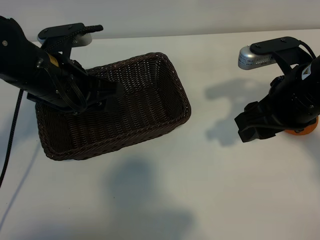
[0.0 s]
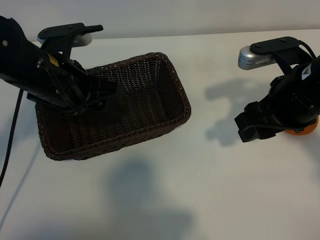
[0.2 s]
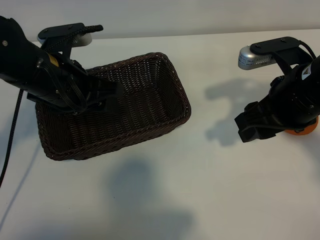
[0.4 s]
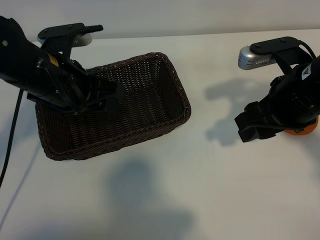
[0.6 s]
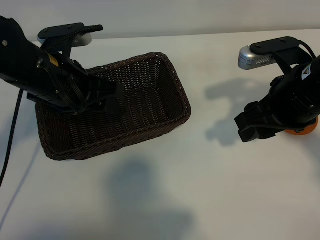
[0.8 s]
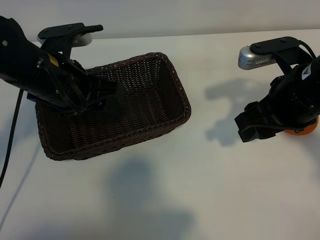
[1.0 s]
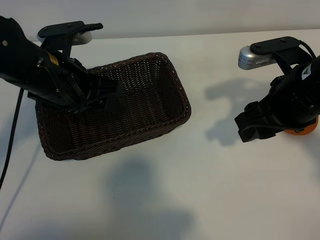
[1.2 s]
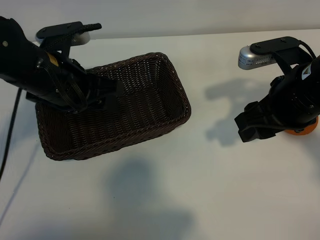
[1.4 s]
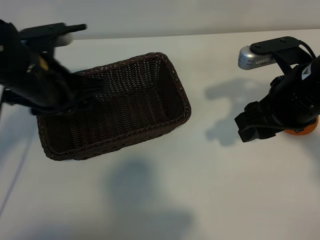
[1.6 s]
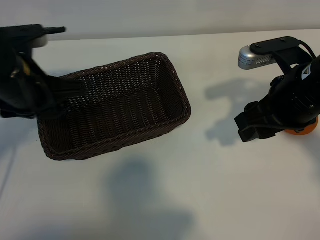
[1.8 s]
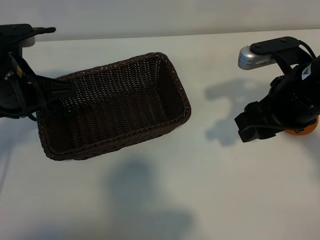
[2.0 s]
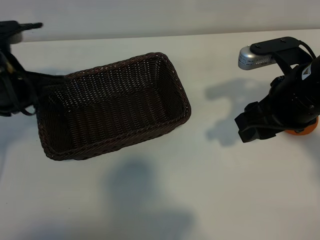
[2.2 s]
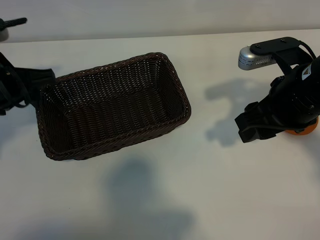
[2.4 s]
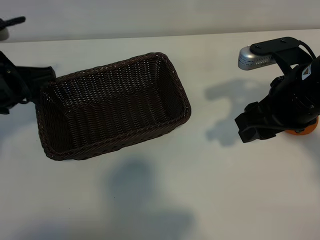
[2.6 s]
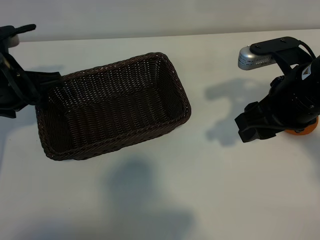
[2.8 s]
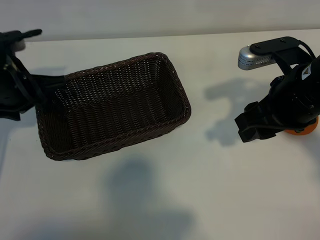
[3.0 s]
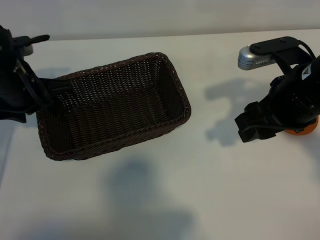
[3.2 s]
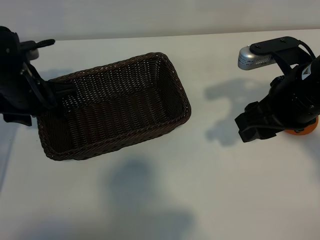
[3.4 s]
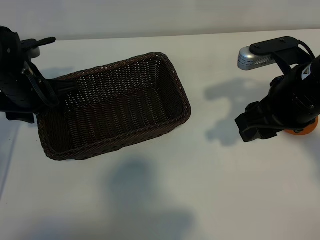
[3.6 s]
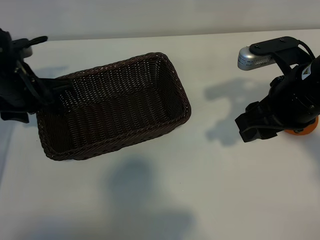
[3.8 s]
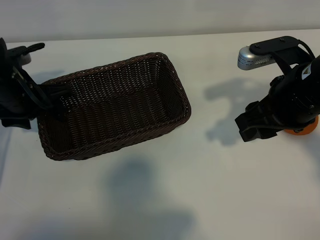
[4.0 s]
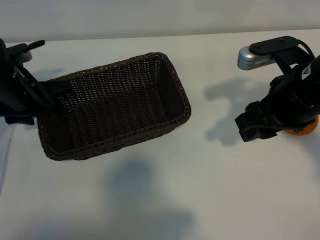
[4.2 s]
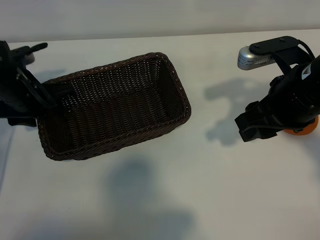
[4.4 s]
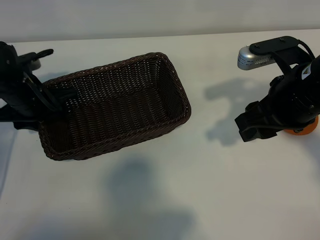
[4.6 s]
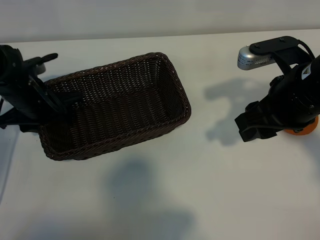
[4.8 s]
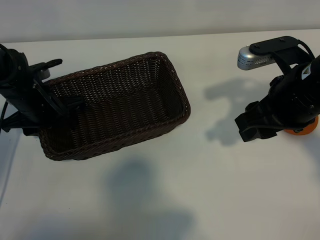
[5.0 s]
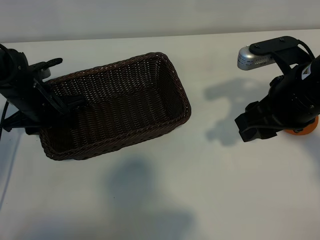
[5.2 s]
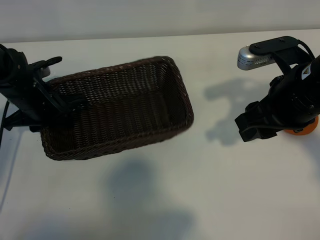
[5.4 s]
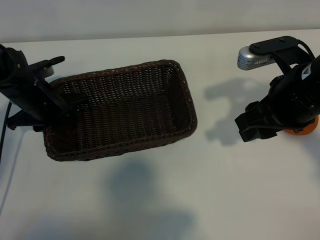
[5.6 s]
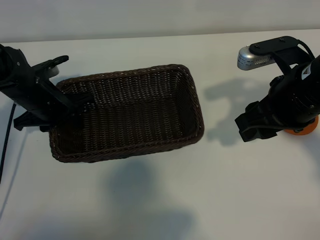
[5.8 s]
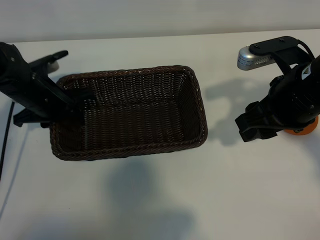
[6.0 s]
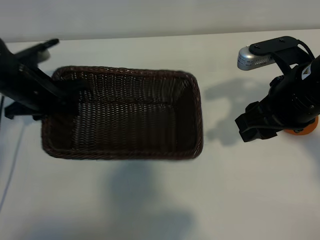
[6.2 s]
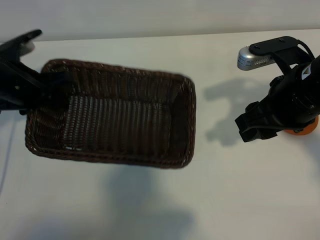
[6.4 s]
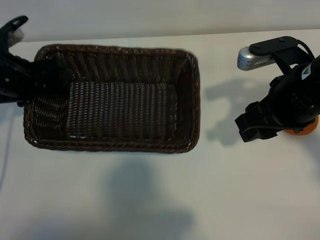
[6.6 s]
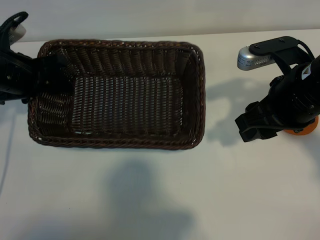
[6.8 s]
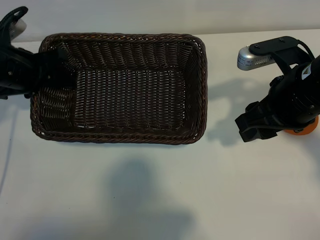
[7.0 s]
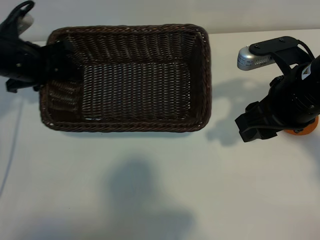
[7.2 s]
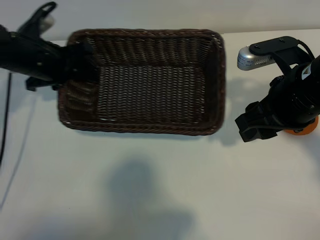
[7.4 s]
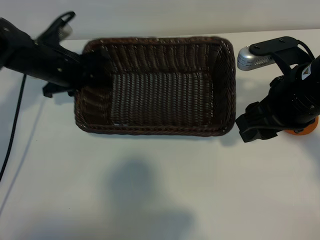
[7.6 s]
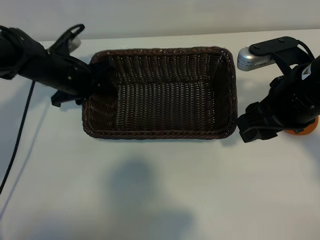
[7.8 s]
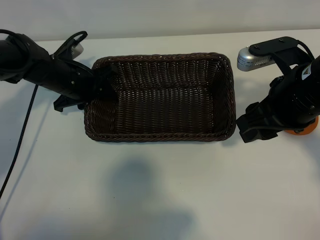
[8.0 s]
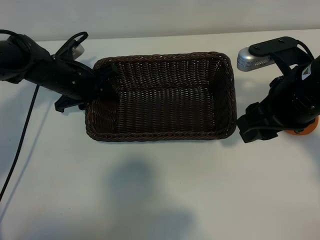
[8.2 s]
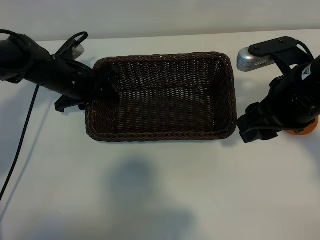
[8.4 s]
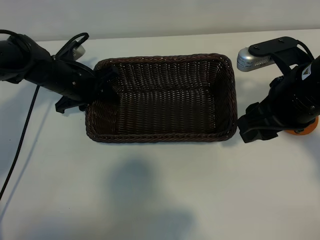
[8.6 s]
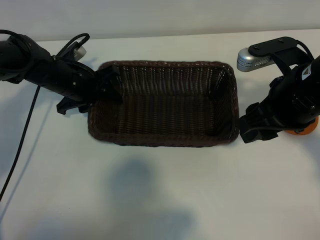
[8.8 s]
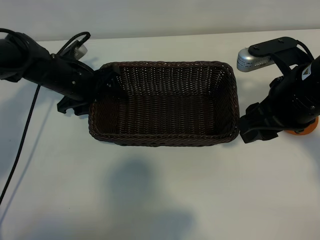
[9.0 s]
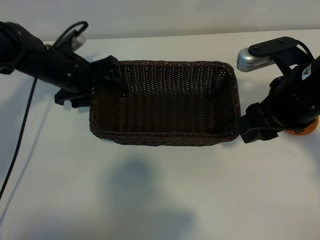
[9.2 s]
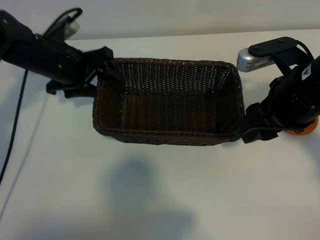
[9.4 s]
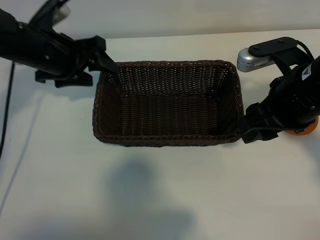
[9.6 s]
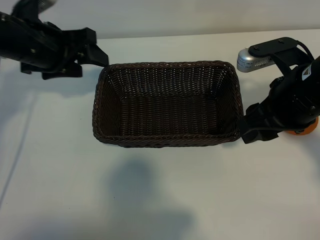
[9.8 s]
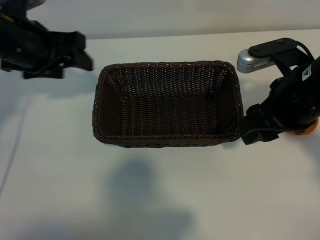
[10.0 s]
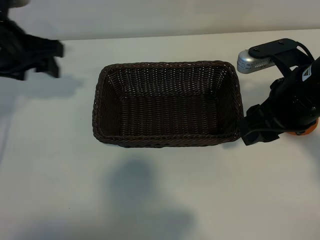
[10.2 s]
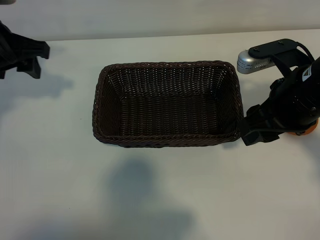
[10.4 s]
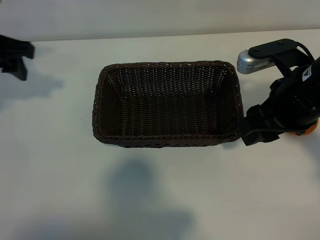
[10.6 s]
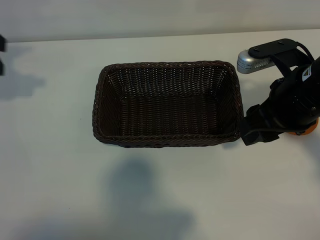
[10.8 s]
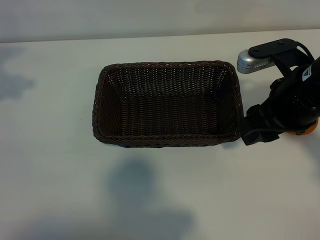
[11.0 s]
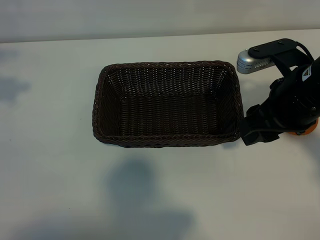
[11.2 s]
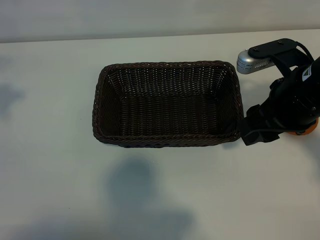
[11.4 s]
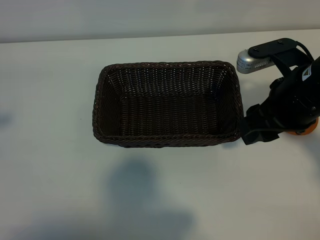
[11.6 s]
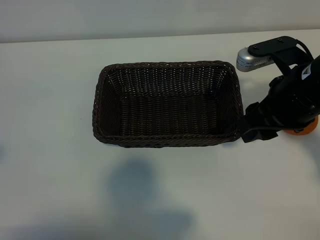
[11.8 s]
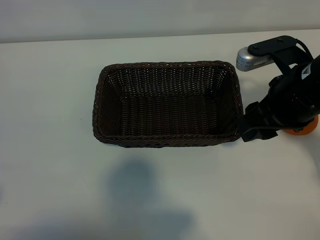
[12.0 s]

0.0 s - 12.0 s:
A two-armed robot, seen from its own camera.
Task of the whole recording: pick up the orange and put it into the basket.
Step, 1.2 s - 5.4 s: Grasp the basket with left gripper.
Step, 5.6 s - 8.8 s: Place the basket in the center of view with left gripper.

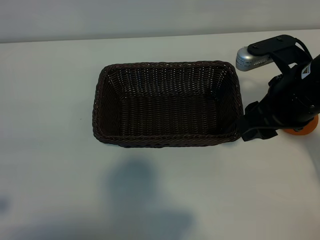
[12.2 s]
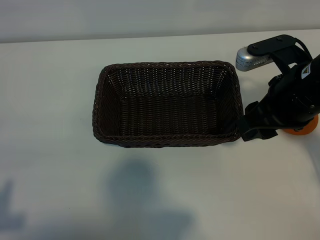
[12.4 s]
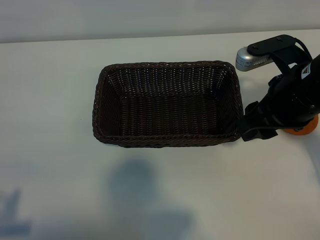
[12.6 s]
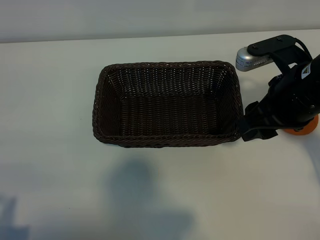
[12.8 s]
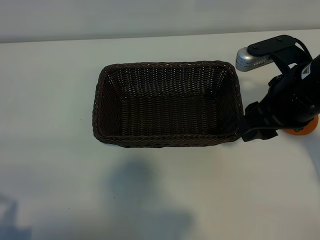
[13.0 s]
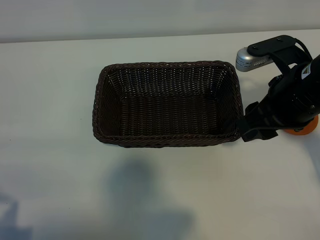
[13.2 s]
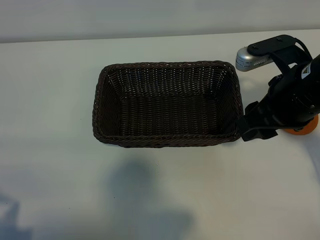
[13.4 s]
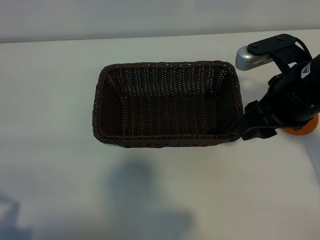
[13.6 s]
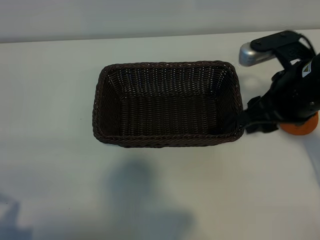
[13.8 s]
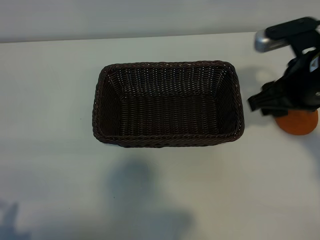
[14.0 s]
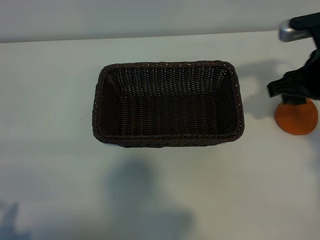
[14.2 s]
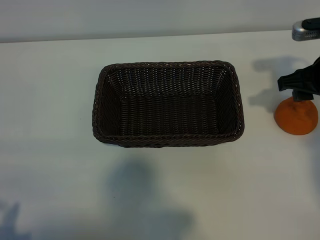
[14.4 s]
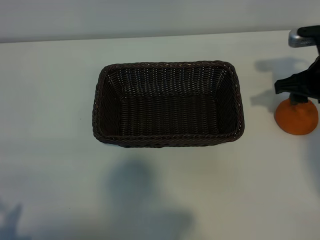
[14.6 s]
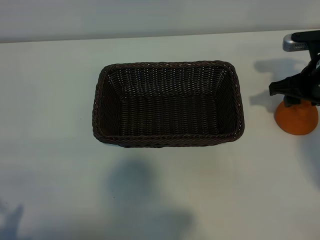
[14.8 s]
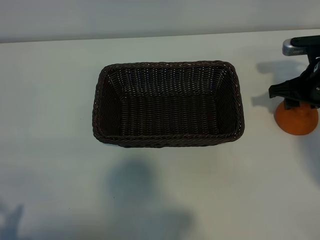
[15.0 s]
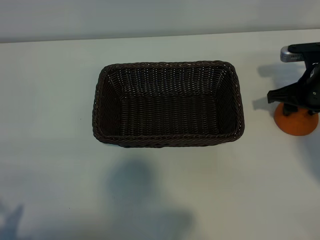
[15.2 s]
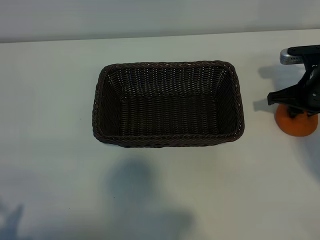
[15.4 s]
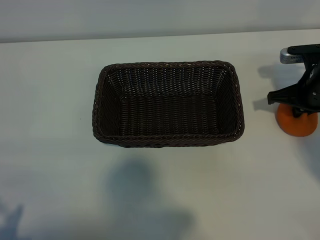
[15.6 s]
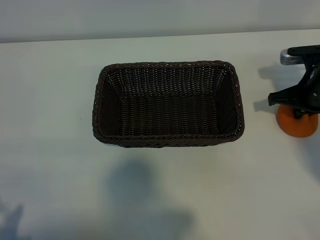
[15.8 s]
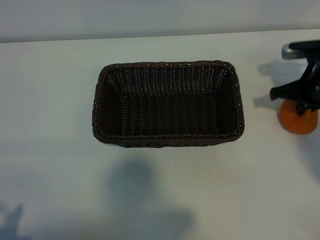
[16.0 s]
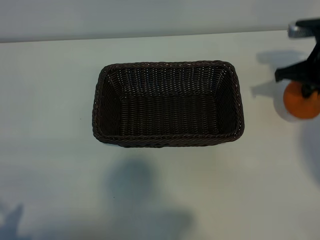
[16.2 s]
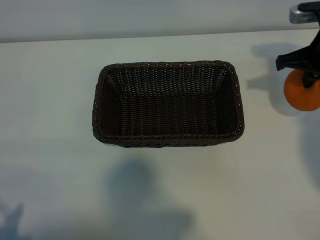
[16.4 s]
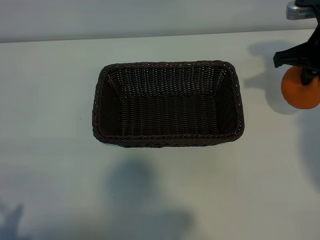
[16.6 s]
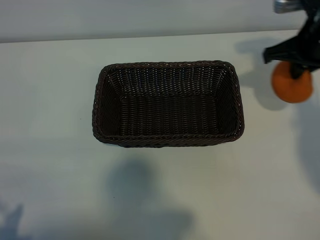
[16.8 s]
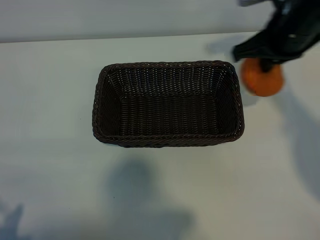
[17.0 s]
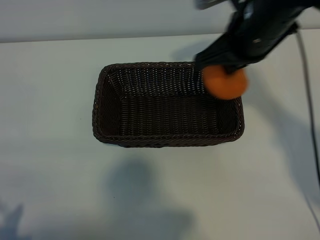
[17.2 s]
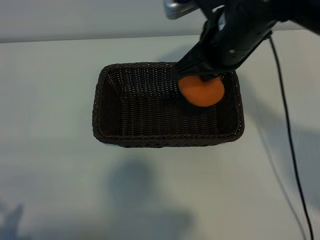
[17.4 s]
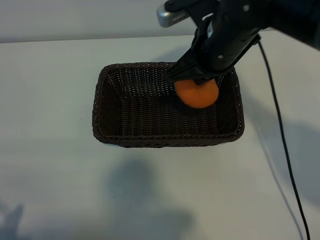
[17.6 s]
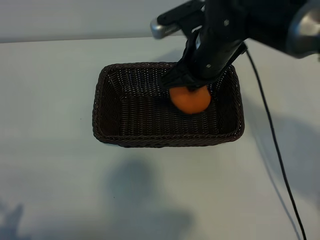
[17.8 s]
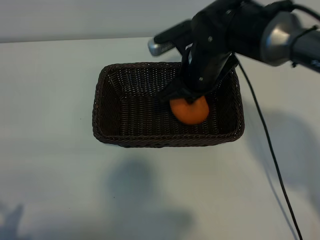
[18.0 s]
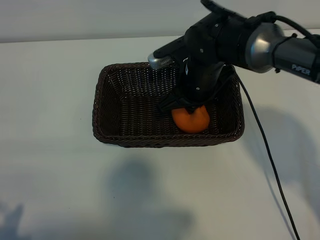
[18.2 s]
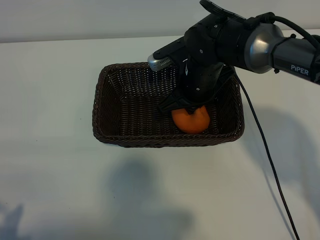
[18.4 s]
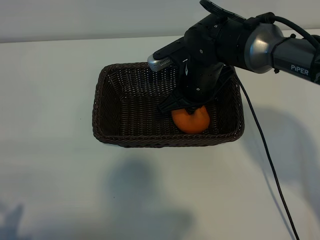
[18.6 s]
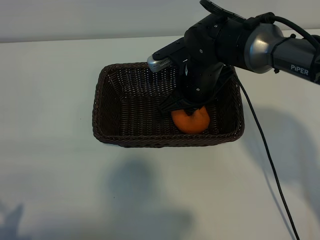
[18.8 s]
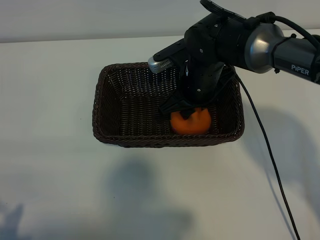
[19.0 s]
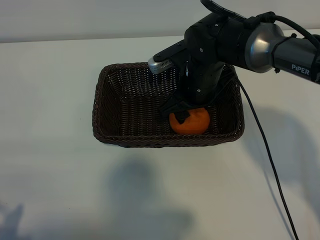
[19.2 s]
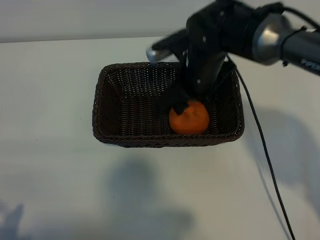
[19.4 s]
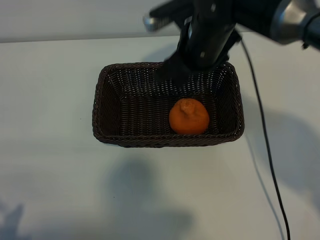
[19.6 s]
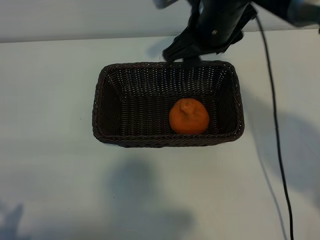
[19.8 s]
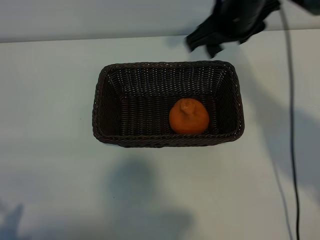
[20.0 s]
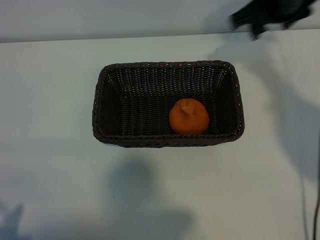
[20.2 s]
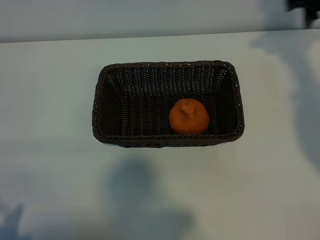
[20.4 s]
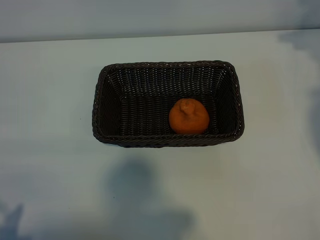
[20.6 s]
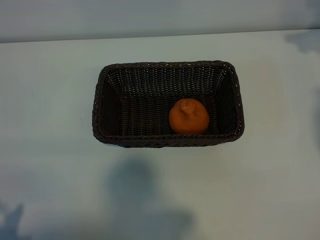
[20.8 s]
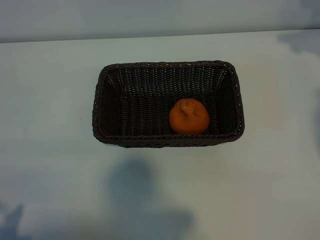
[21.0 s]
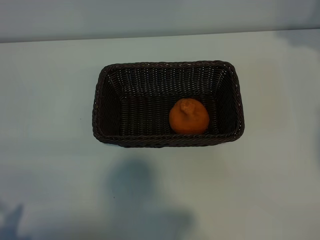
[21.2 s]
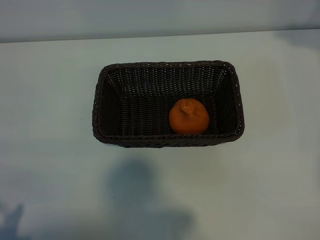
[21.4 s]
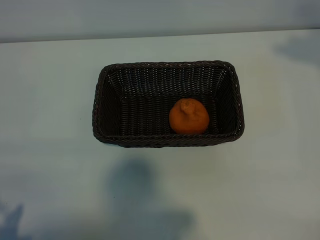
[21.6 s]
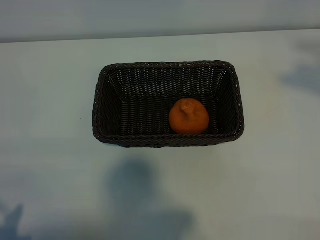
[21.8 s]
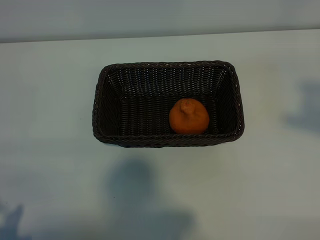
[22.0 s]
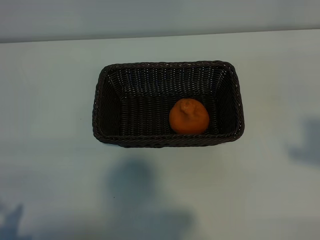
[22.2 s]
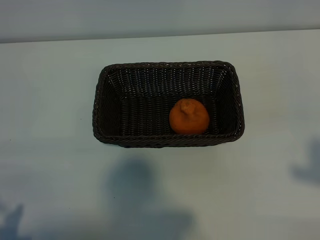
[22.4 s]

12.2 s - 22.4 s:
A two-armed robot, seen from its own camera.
Task of the whole recording: pick up the orange and put it into the basket.
Step, 12.2 s - 15.6 s: Grasp the orange with right gripper.
Step, 15.8 s - 19.2 s: Place the orange in the basket with right gripper.

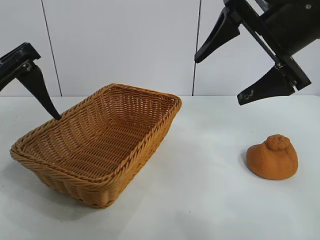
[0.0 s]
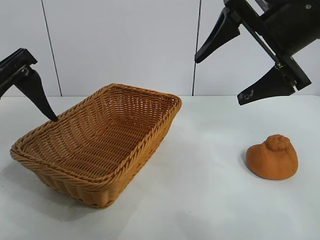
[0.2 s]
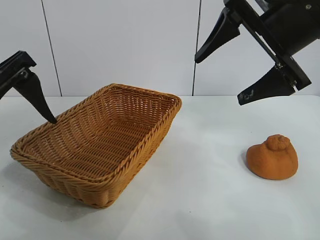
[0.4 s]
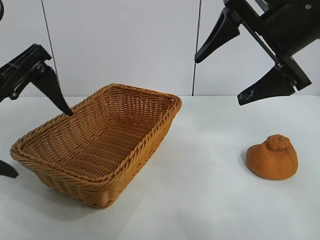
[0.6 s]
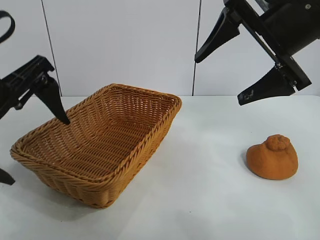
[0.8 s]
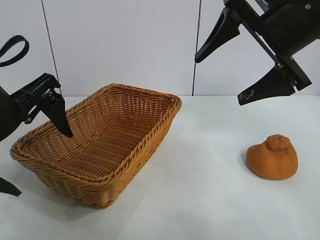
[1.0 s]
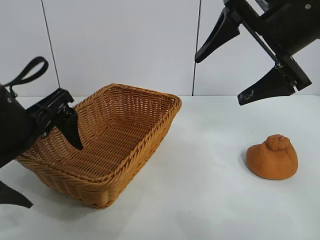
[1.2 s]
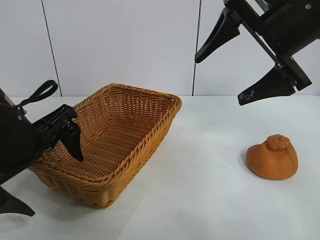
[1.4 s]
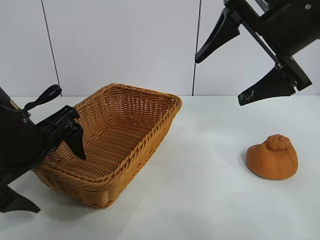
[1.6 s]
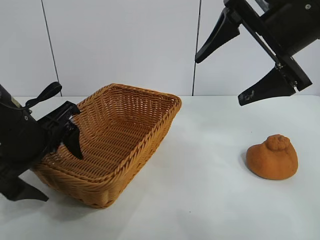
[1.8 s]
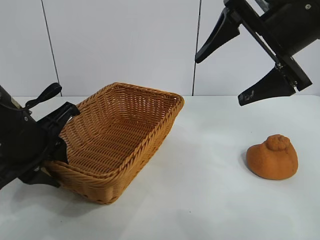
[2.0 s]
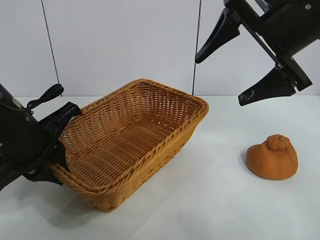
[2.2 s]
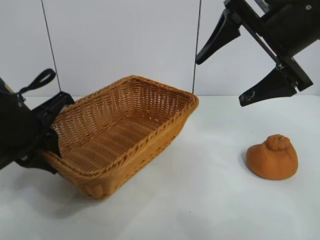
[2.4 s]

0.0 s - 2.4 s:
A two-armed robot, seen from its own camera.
Task of the whole recording: pick up the orange and put it into the basket.
Step, 0.0 s - 2.0 s: Grasp the basket with left gripper.
